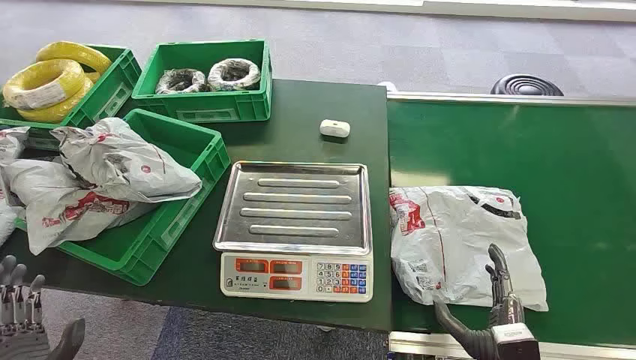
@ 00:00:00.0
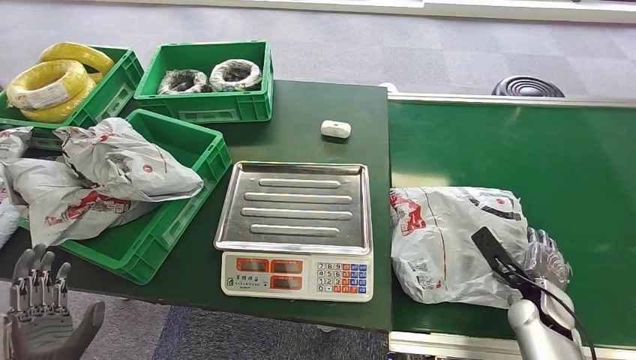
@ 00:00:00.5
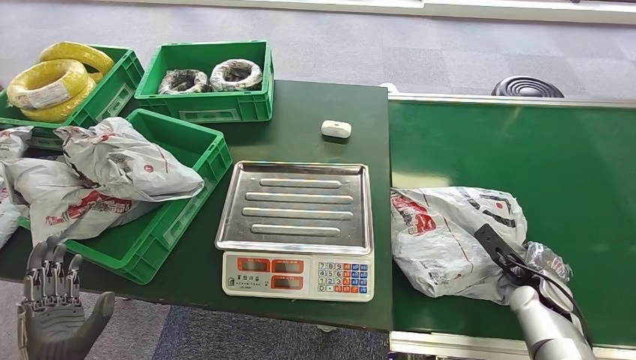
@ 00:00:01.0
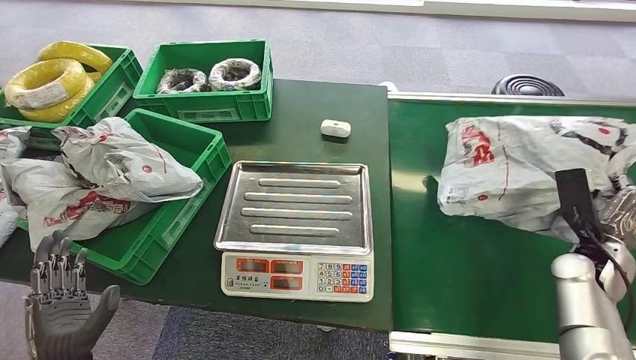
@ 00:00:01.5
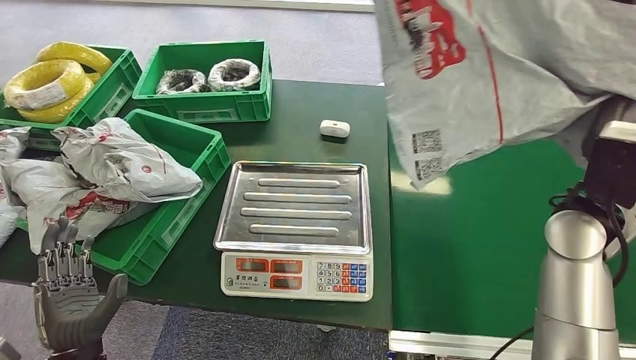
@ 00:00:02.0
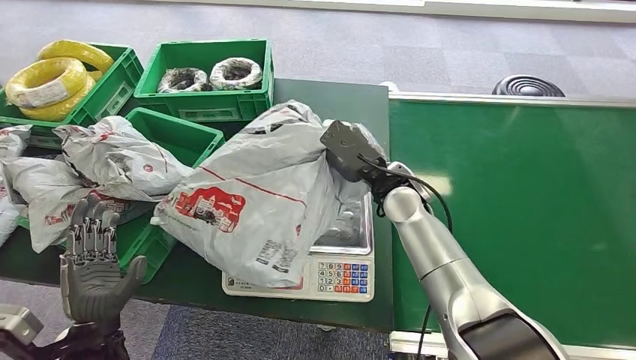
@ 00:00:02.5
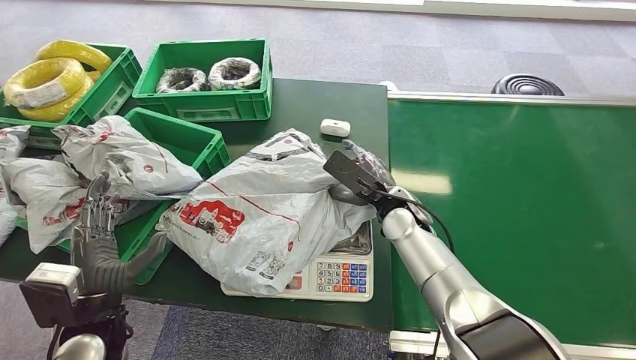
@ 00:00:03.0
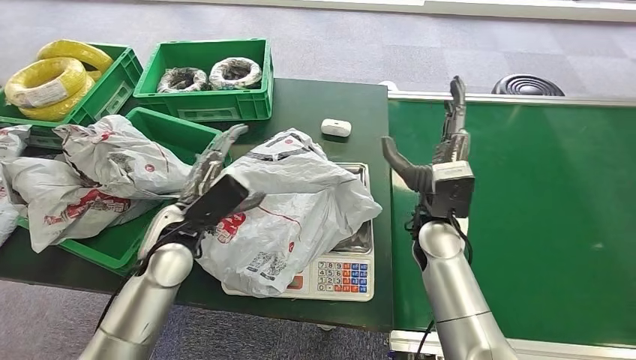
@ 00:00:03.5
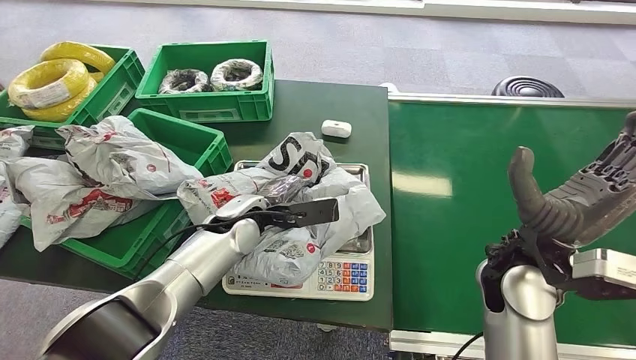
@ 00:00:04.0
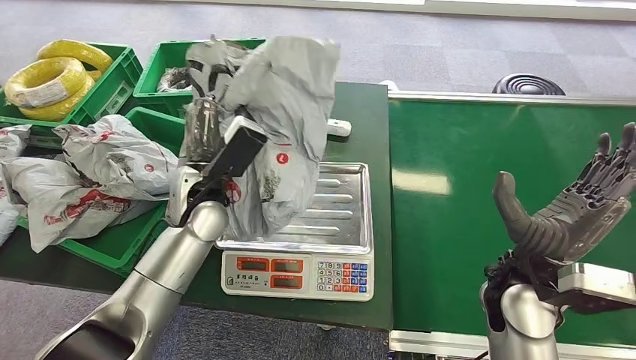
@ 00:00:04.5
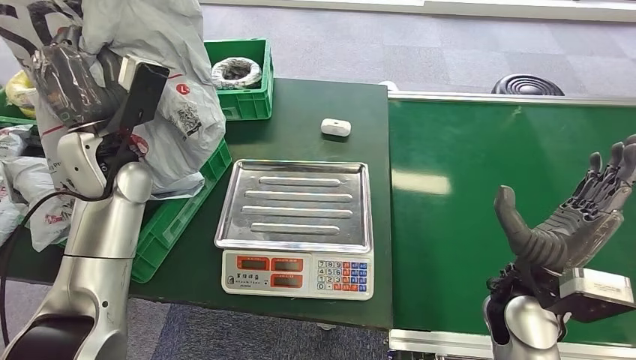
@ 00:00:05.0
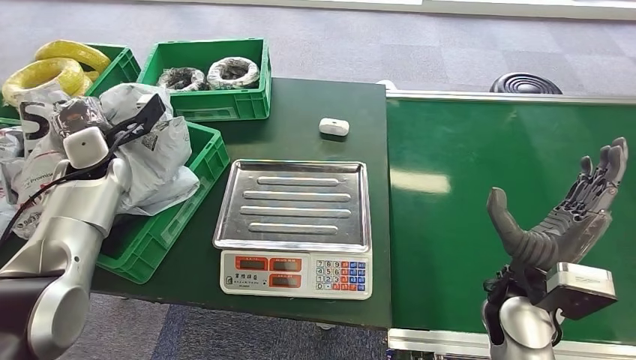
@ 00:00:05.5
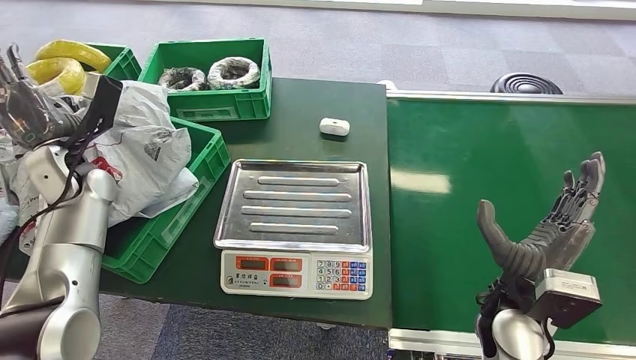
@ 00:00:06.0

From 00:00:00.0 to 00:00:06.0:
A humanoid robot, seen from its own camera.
Step, from 00:00:00.0 to 00:00:01.5: Pick up the package from the conveyor belt.
Step, from 00:00:02.0 to 00:00:03.0: Place the package onto the inbound machine.
Step, from 00:00:03.5 to 00:00:05.0: Pick up the package from the inbound machine.
Step, from 00:00:05.5 to 00:00:06.0: Place the package into the parcel locker.

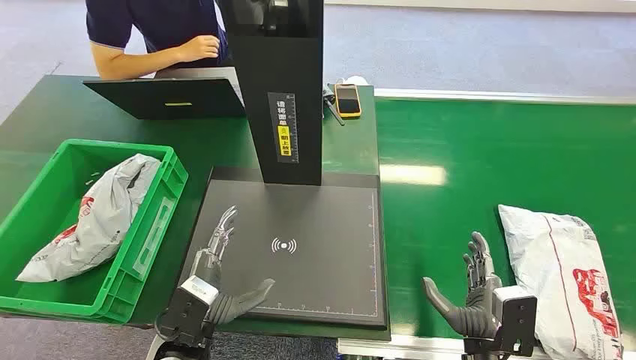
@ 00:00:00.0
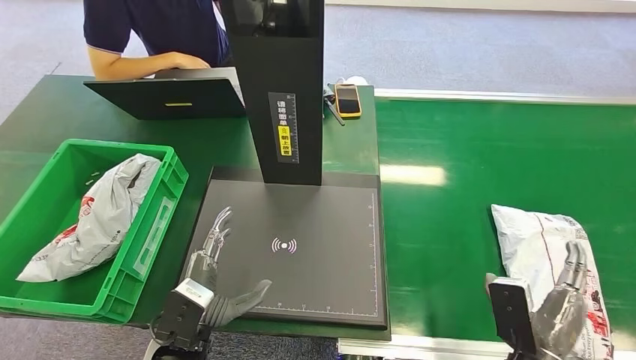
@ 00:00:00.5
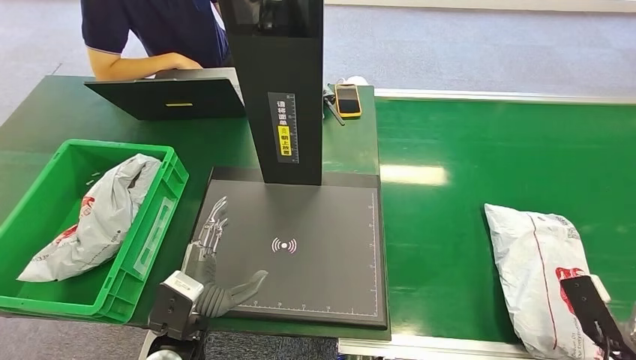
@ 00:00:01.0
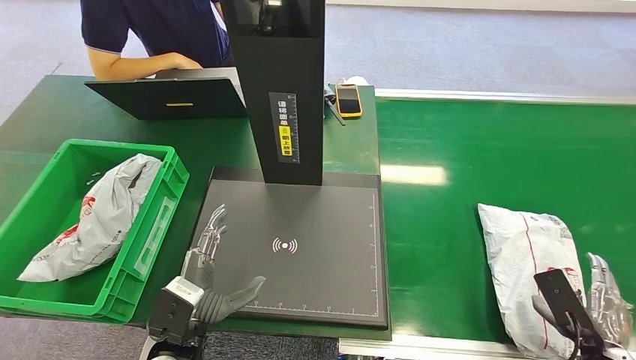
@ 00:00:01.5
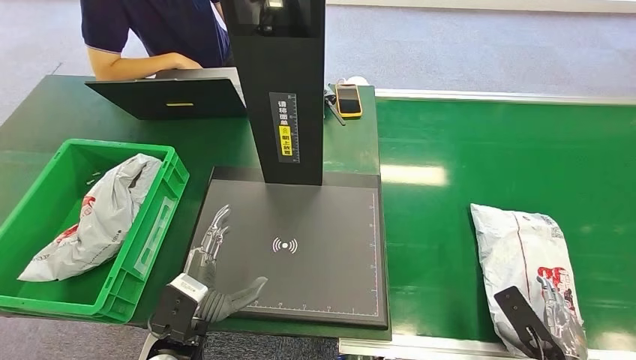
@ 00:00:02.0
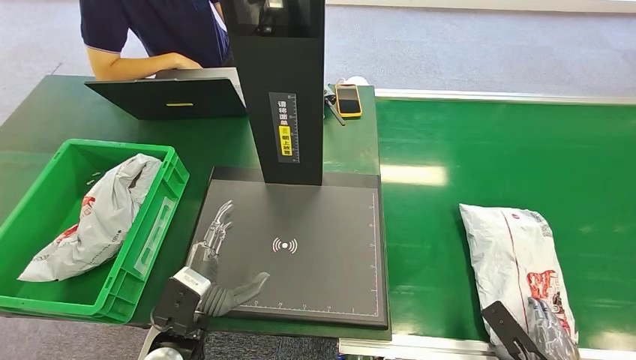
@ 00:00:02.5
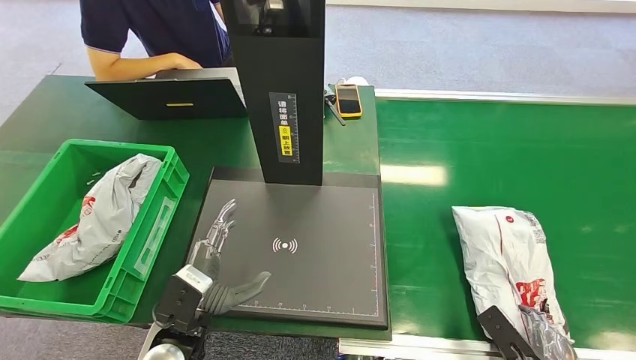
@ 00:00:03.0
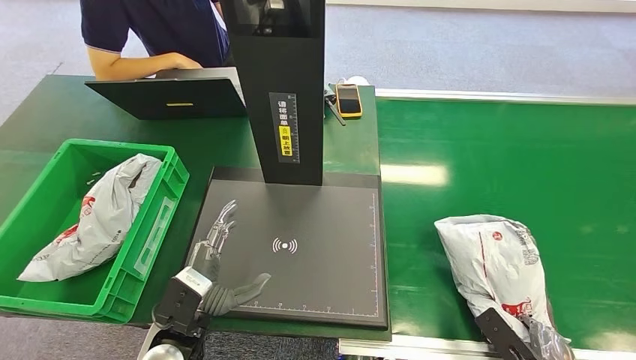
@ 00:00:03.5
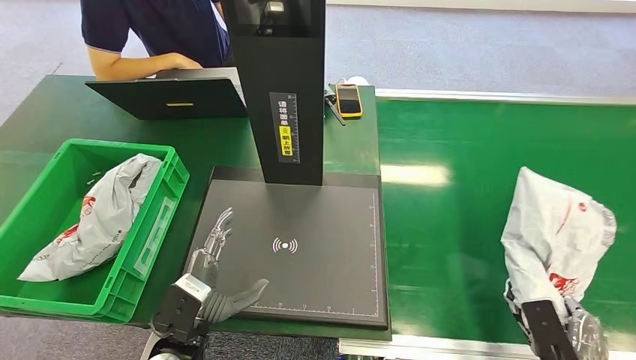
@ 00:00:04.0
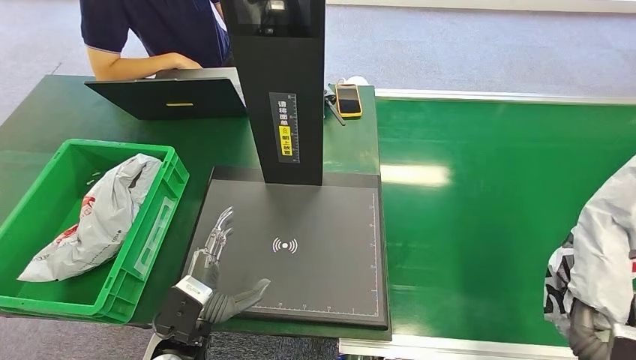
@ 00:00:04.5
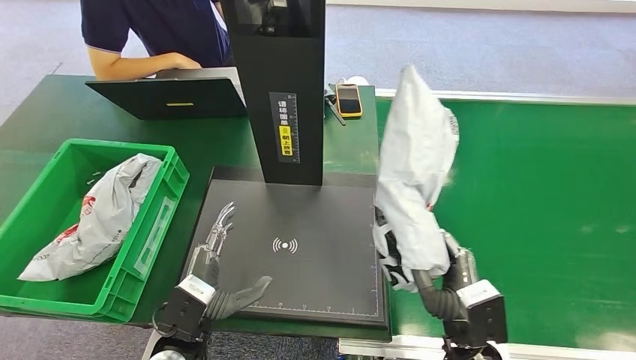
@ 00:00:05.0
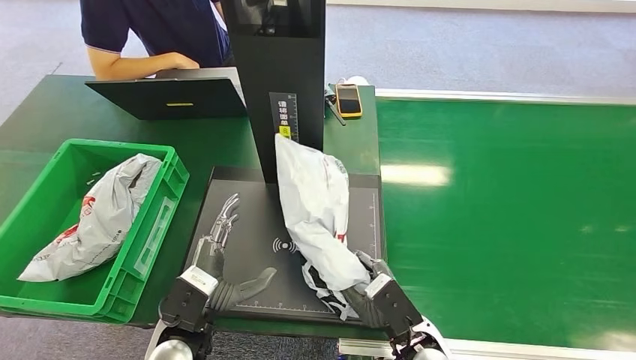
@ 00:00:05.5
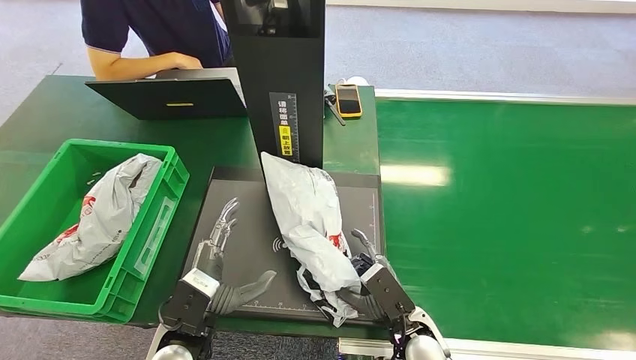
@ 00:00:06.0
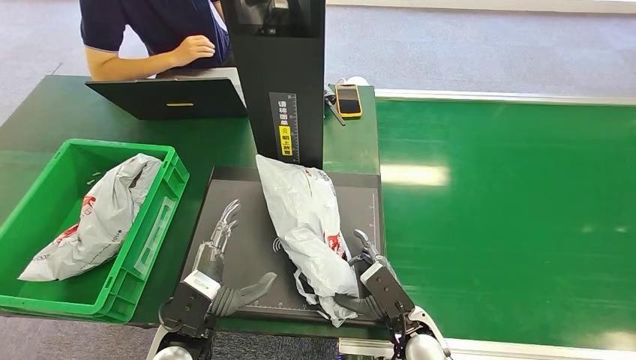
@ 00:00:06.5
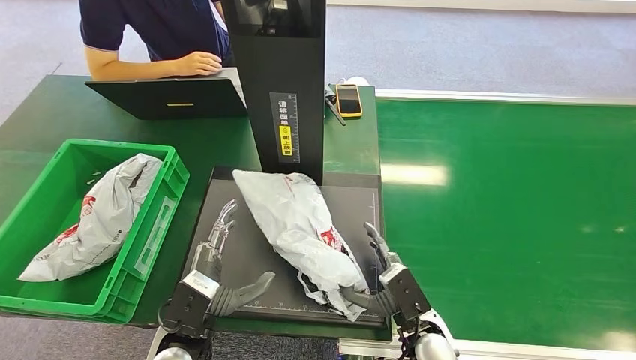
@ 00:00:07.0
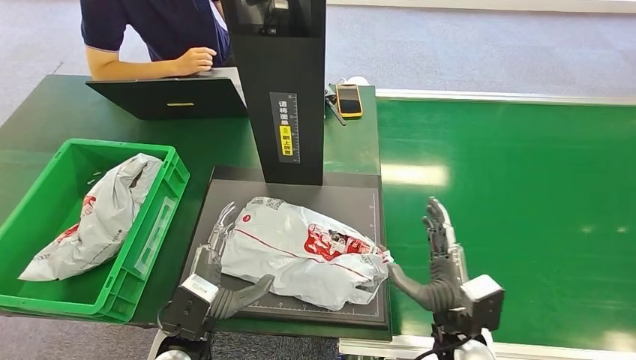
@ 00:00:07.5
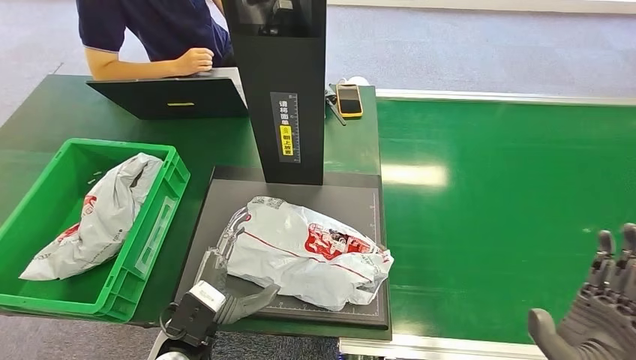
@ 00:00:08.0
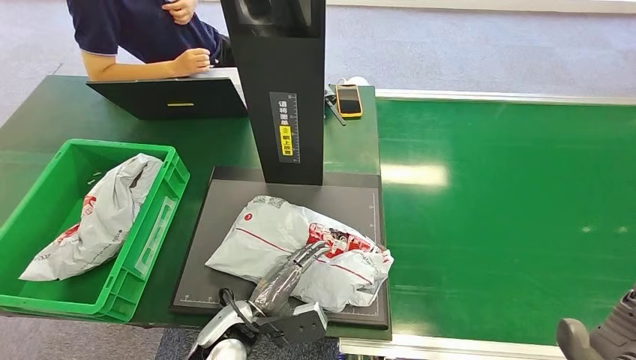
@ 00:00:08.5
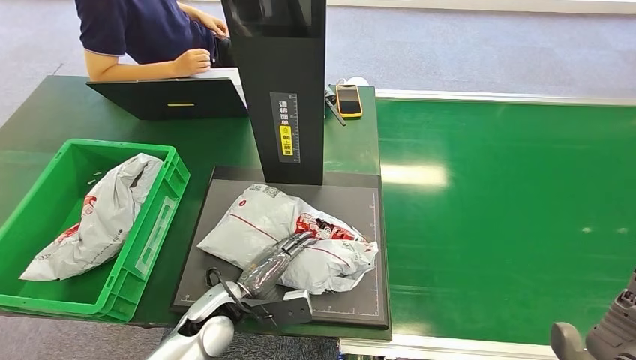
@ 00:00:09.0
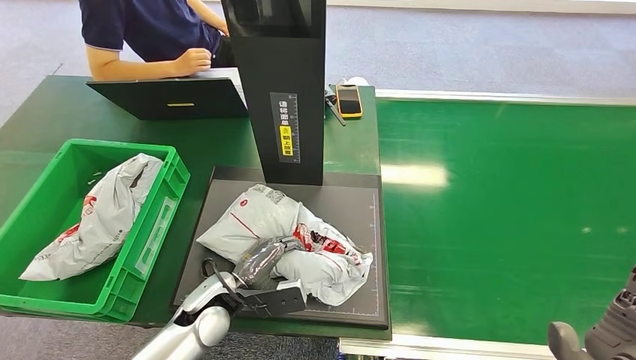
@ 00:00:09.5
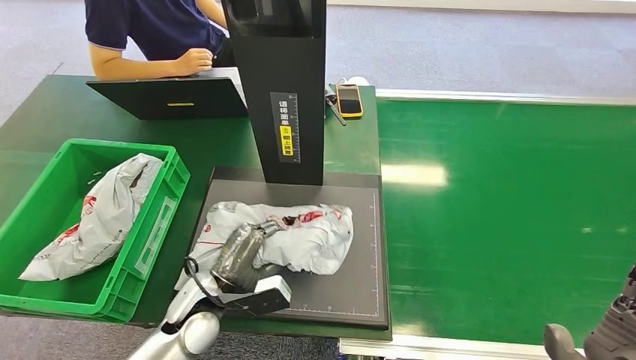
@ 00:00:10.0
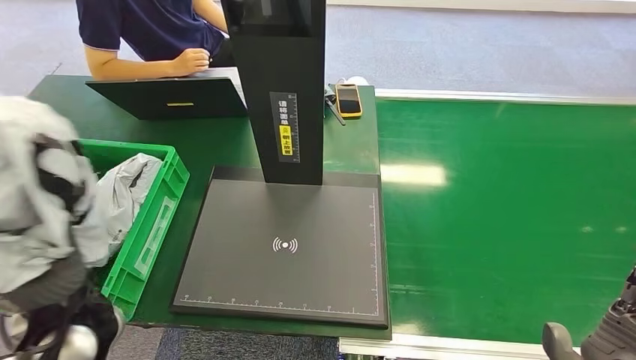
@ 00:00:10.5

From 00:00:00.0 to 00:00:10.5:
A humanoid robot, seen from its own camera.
Step, from 00:00:00.0 to 00:00:04.5: Pick up the package from the conveyor belt.
Step, from 00:00:05.0 to 00:00:07.5: Place the package onto the inbound machine.
Step, from 00:00:08.0 to 00:00:10.0: Pick up the package from the inbound machine.
From 00:00:02.0 to 00:00:04.0: The hands stay close to where they were, moving slightly.
From 00:00:06.5 to 00:00:08.5: The left hand moves to the right, about 5 cm; the right hand moves upward, to the right and backward, about 25 cm.

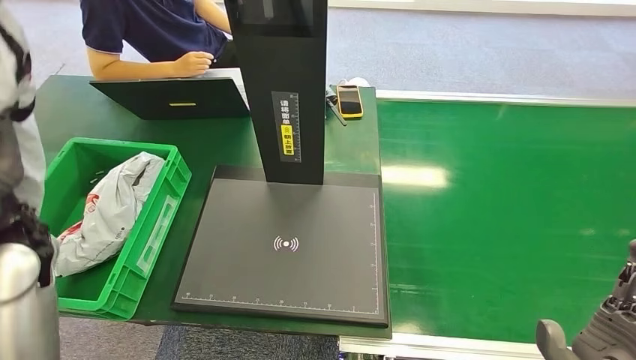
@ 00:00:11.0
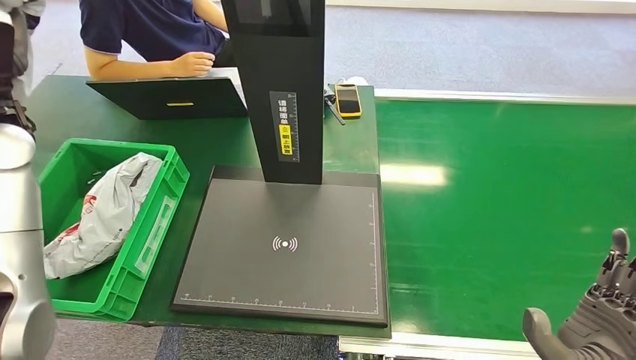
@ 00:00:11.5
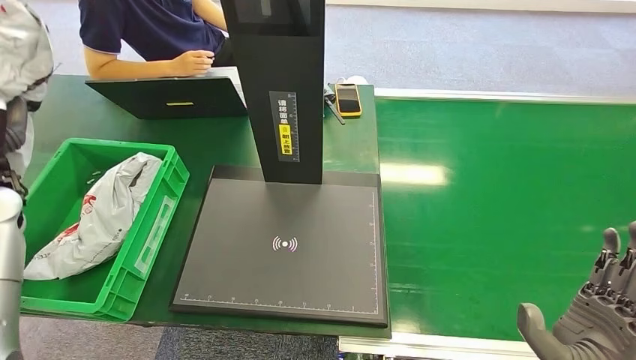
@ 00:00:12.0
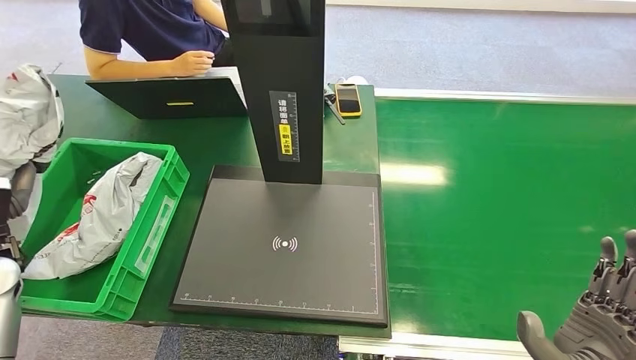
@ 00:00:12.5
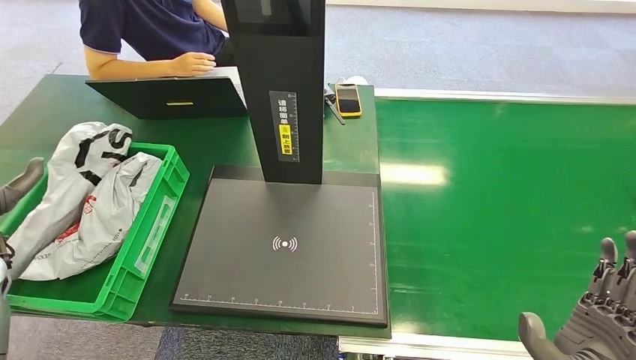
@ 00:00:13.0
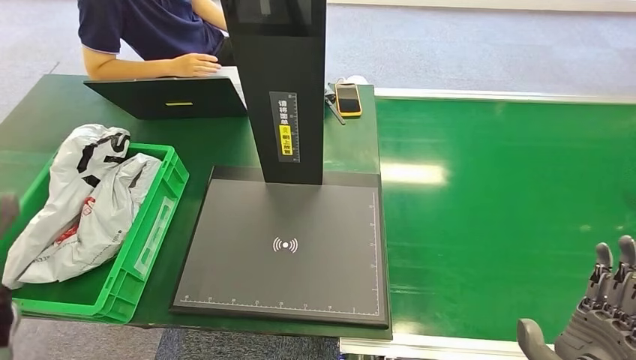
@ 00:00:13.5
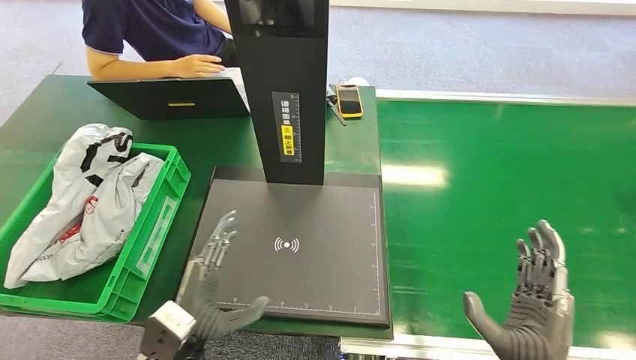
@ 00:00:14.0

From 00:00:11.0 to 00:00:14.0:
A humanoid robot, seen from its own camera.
Step, from 00:00:11.0 to 00:00:14.0: Place the package into the parcel locker.
From 00:00:11.0 to 00:00:12.5: The left hand goes some 15 cm to the left and downward.
From 00:00:12.5 to 00:00:14.0: The left hand travels to the right and backward by approximately 30 cm.
